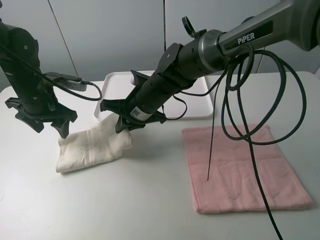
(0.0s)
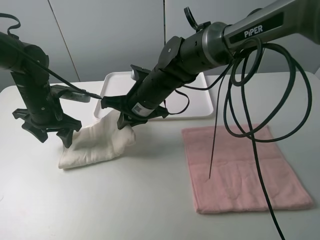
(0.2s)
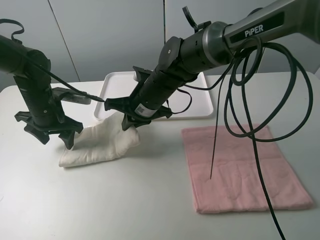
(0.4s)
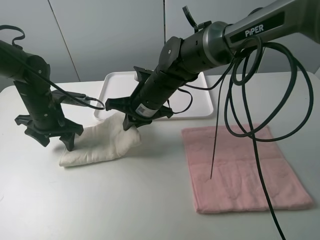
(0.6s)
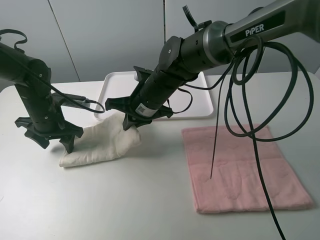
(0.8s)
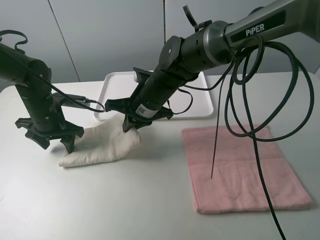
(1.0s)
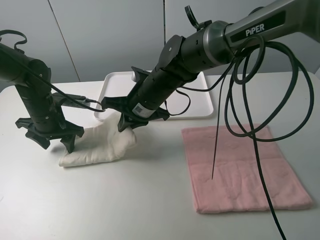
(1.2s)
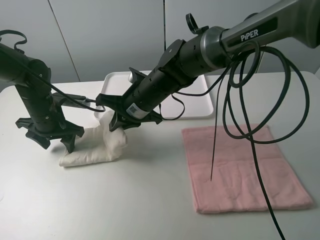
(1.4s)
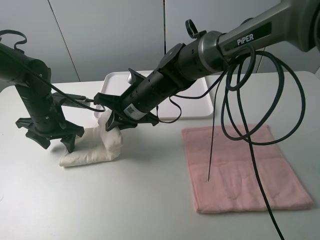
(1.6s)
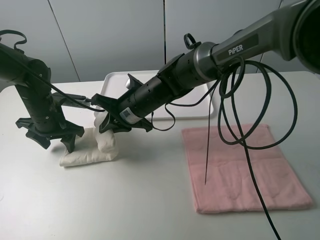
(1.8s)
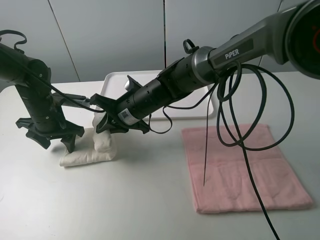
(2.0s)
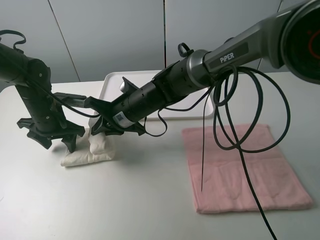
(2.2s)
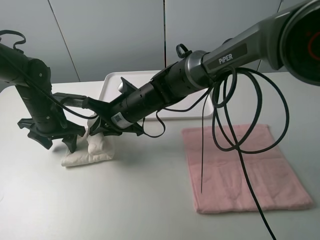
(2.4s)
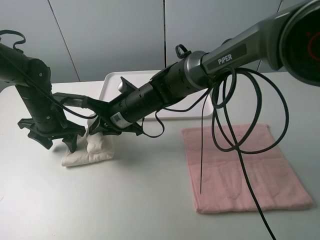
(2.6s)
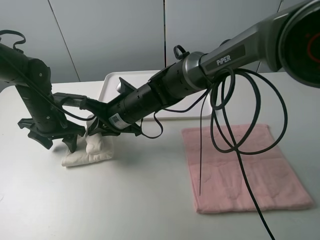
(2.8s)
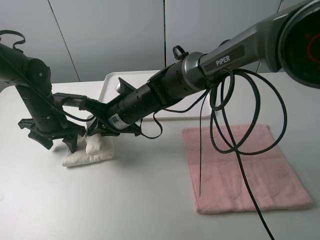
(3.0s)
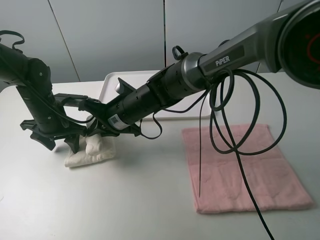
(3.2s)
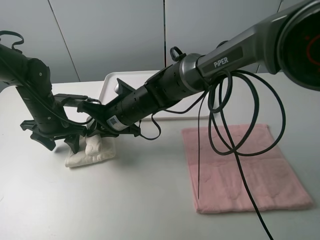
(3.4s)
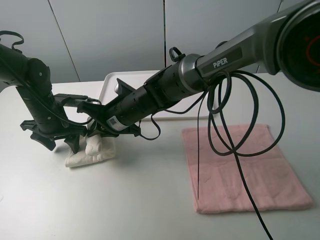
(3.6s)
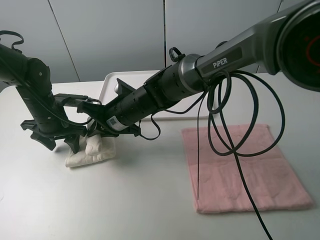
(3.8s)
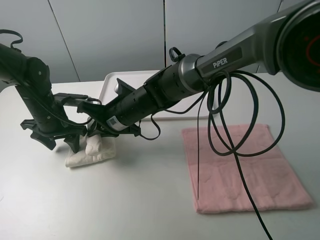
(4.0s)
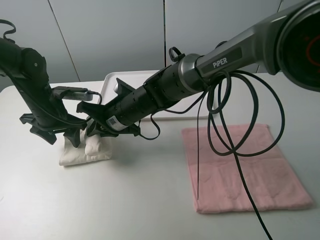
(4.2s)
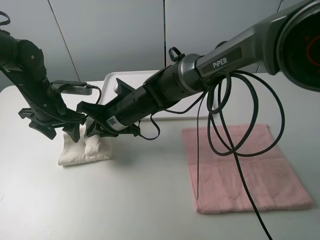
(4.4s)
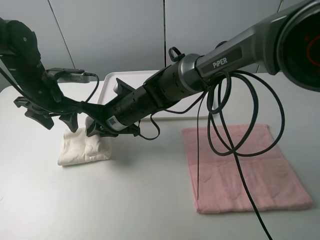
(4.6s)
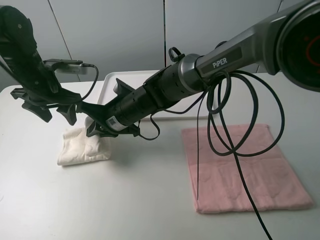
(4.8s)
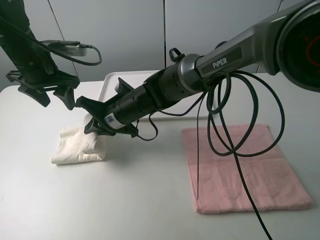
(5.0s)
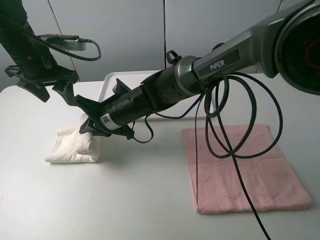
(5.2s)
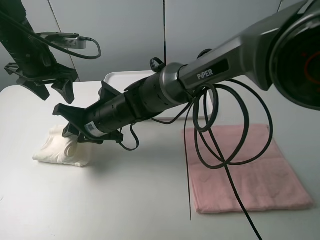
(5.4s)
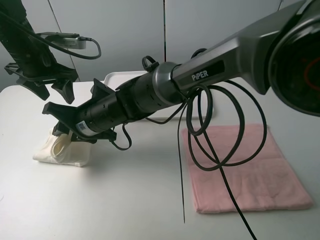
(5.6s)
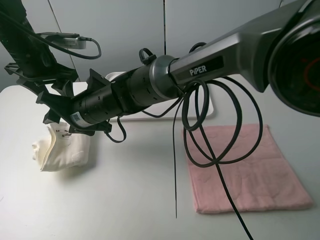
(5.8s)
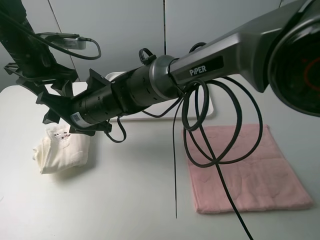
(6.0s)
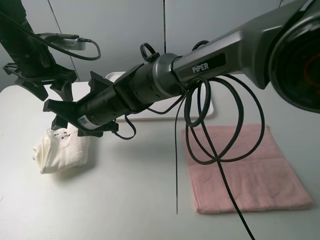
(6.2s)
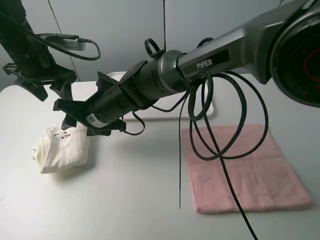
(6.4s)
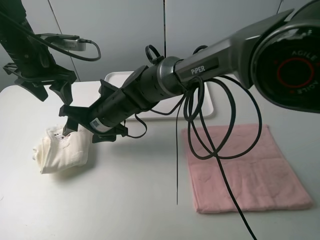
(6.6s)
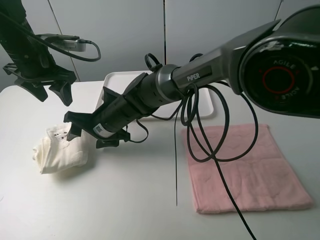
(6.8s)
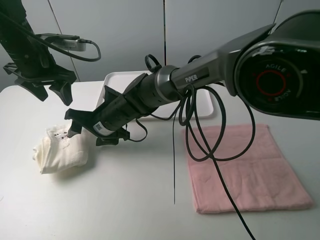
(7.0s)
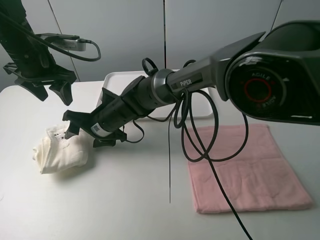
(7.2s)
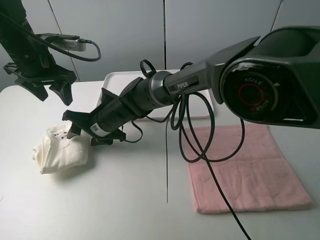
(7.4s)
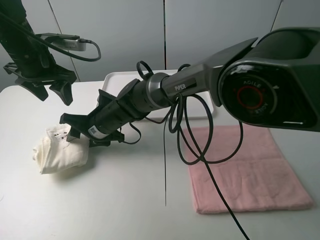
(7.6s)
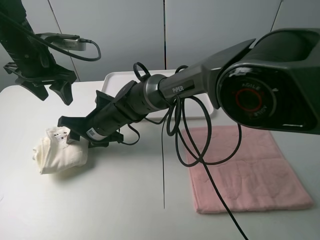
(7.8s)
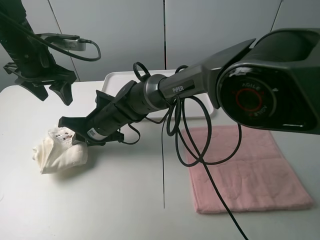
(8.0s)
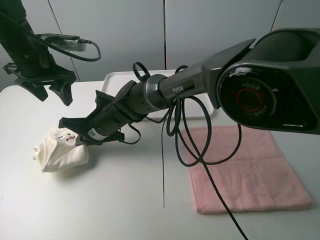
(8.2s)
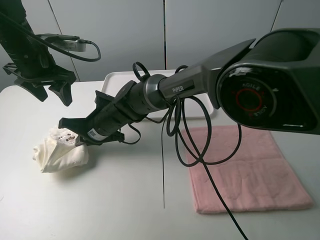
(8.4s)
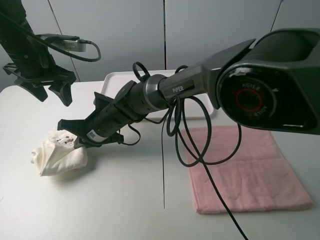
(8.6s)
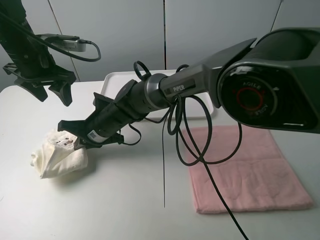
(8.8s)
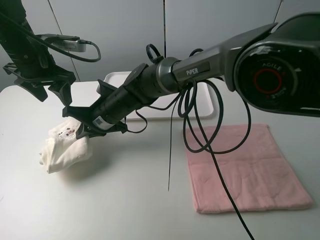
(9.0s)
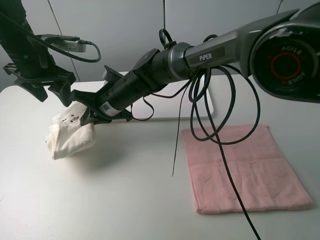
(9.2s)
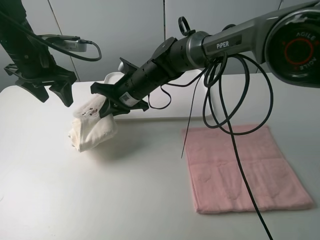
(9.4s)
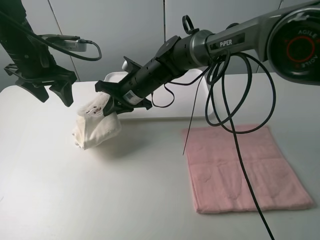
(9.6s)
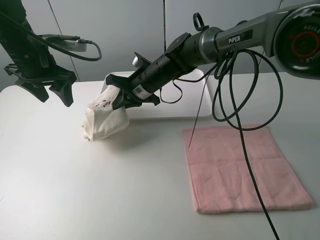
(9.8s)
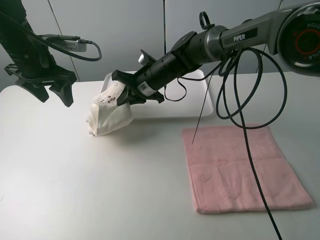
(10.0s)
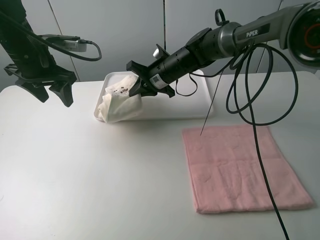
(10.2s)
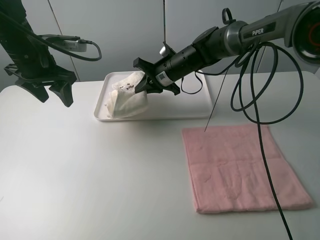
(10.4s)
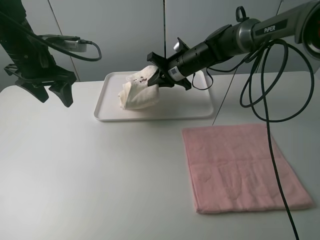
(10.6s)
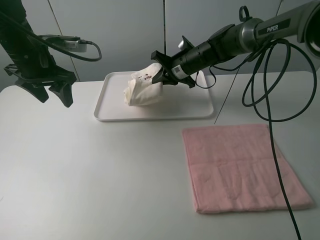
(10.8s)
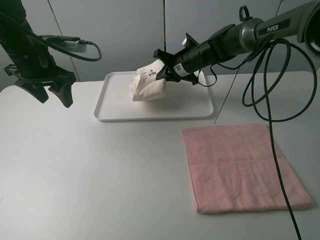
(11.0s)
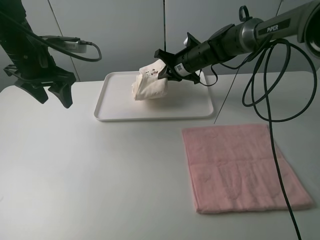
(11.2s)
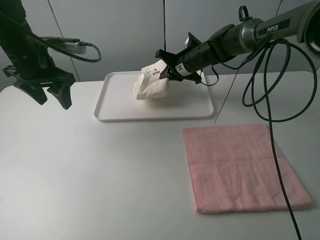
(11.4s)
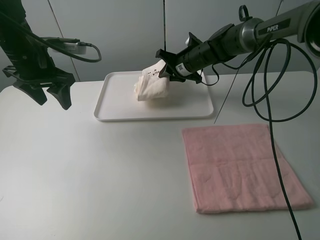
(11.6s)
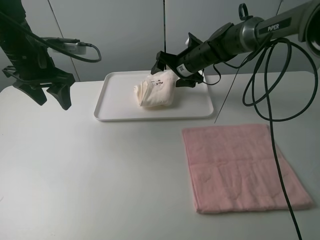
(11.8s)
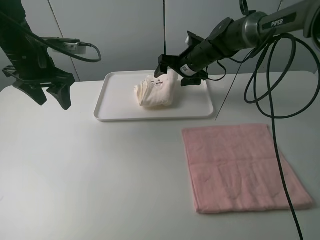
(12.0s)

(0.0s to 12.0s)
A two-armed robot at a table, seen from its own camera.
Task of the whole recording: fold one of the towels by two grippers and place it on the tray,then fold another towel by two grippers and place it on the folded towel.
Step, 0.0s - 6.0s: Fold the white towel from right to left with right gripper.
Step, 6.2s - 8.2s: Grasp the white towel with the right gripper.
Step, 8.4s - 11.8s: Move the white towel to the plate with the right gripper.
0.0s - 1.6s: The left gripper is displaced downward by roughly 5 cm.
3.0s - 4.4s: The grippers make only small movements.
4.4s - 6.0s: The left gripper travels upward by roughly 10 cm; the right gripper is displaced to the left by roughly 5 cm, and opens up.
6.0s - 7.6s: The right gripper shifts roughly 5 cm downward.
7.6s - 9.0s: The right gripper closes up.
9.0s - 10.4s: The right gripper travels to the right and forward by roughly 20 cm.
10.4s - 12.0s: The right gripper travels to the right by roughly 5 cm, and opens.

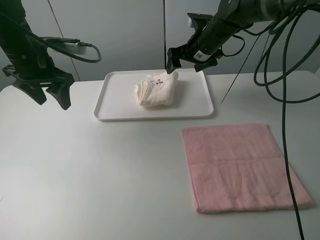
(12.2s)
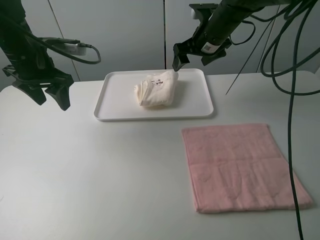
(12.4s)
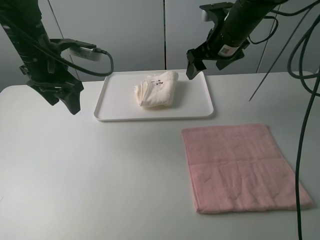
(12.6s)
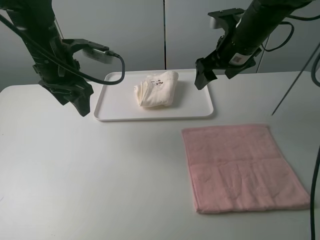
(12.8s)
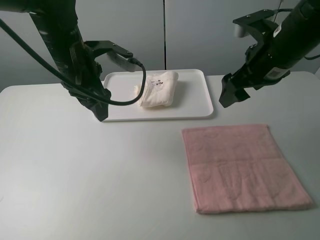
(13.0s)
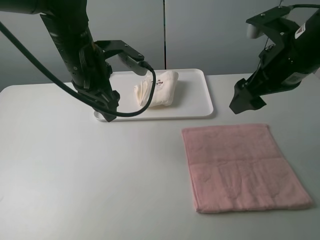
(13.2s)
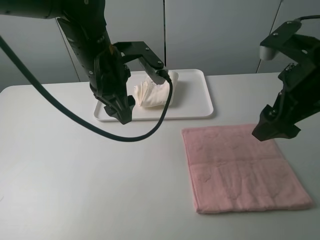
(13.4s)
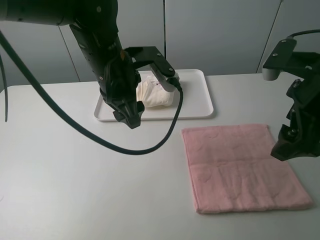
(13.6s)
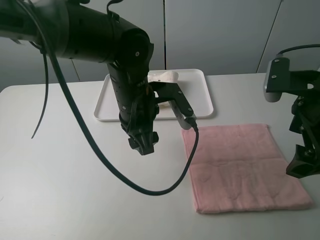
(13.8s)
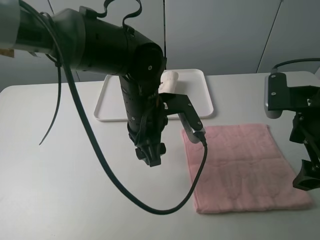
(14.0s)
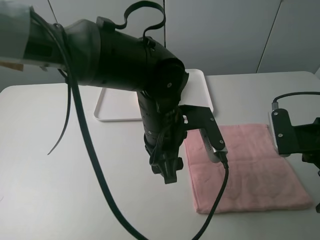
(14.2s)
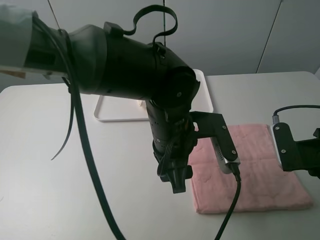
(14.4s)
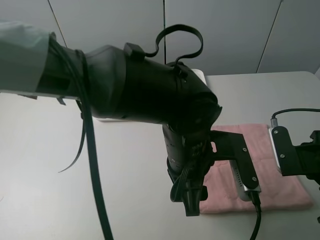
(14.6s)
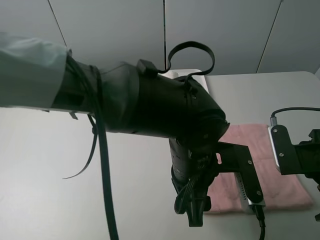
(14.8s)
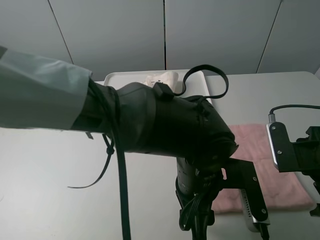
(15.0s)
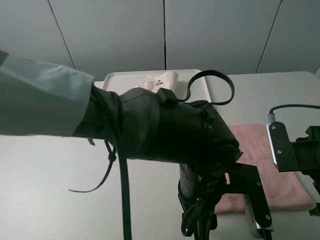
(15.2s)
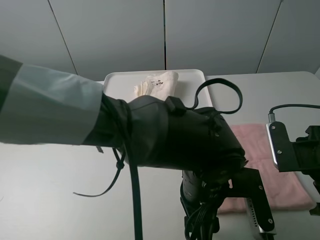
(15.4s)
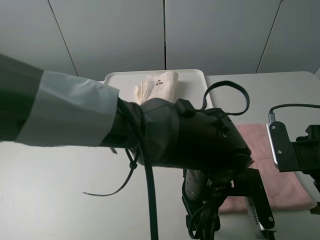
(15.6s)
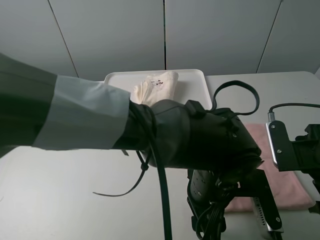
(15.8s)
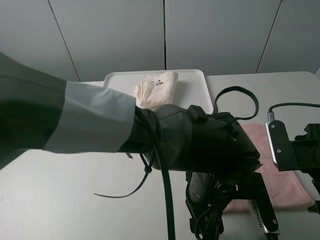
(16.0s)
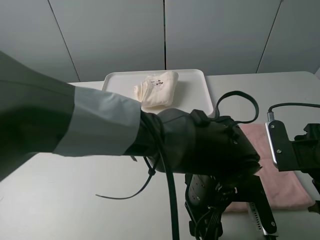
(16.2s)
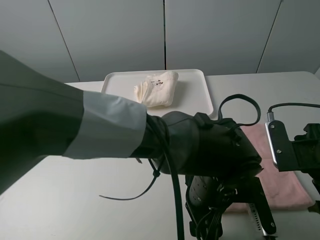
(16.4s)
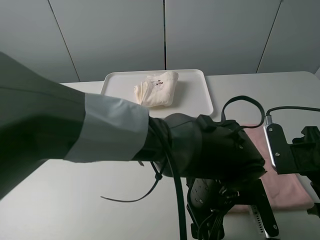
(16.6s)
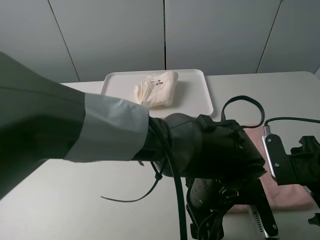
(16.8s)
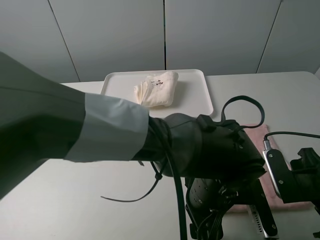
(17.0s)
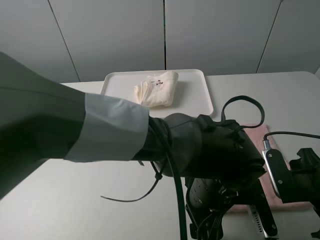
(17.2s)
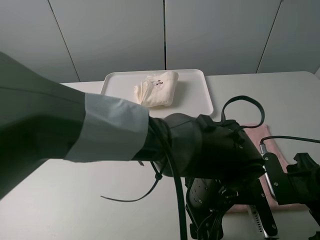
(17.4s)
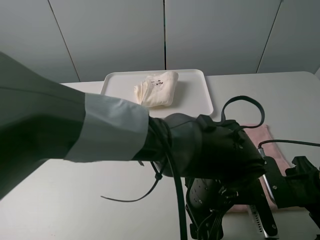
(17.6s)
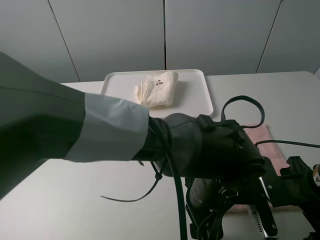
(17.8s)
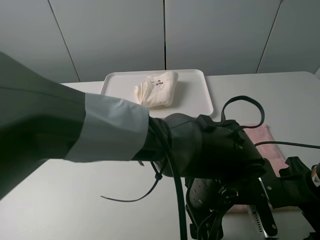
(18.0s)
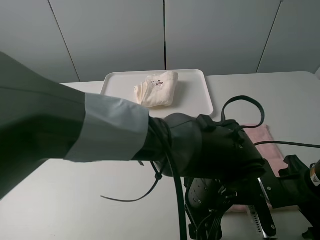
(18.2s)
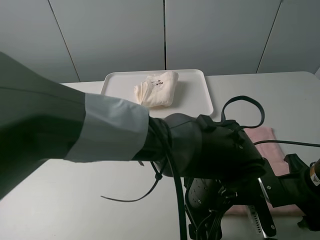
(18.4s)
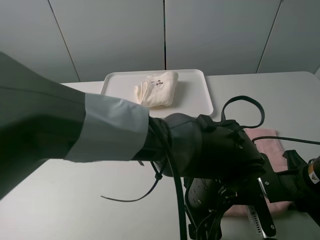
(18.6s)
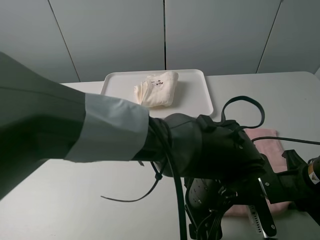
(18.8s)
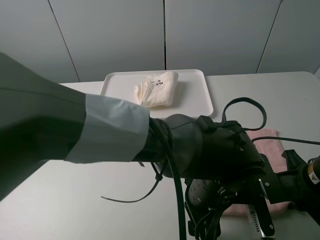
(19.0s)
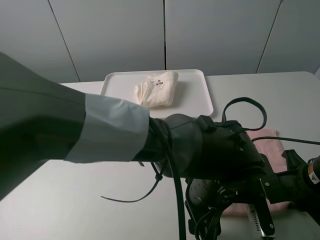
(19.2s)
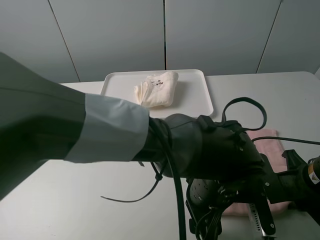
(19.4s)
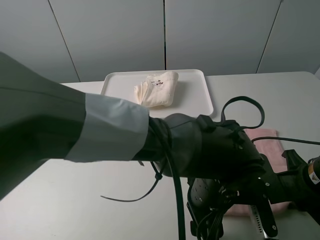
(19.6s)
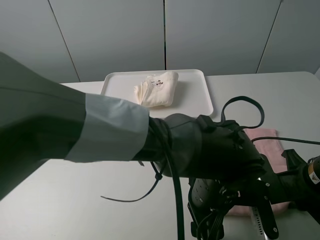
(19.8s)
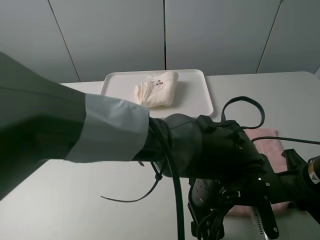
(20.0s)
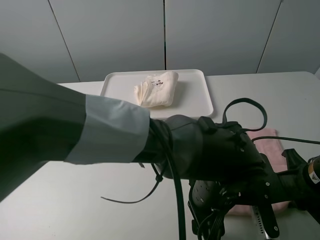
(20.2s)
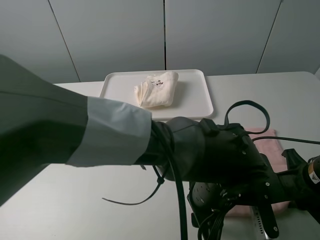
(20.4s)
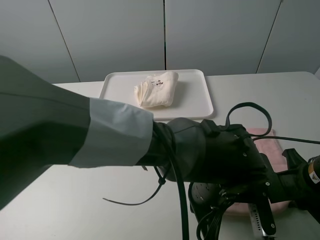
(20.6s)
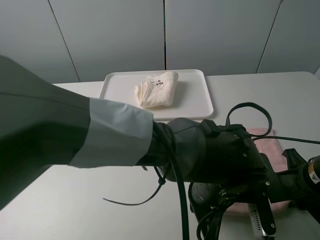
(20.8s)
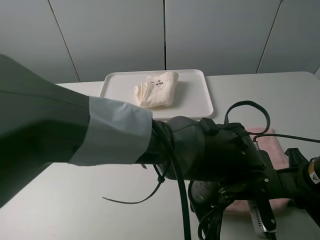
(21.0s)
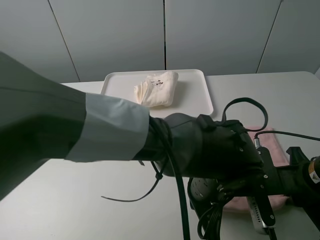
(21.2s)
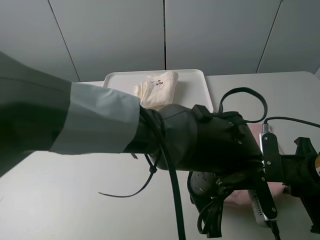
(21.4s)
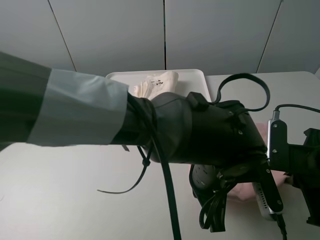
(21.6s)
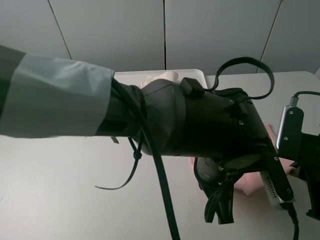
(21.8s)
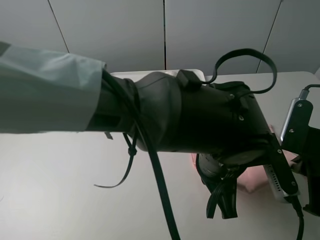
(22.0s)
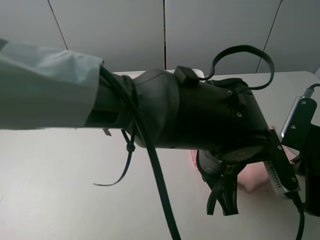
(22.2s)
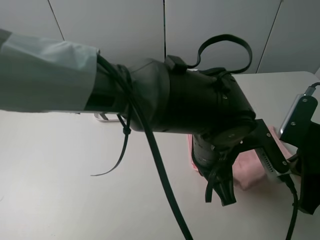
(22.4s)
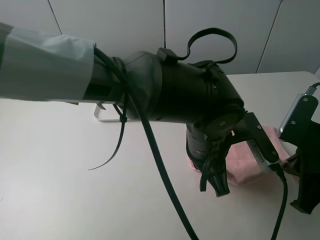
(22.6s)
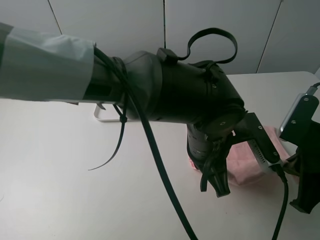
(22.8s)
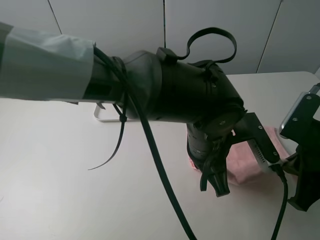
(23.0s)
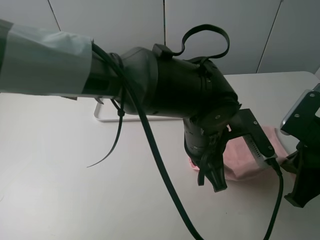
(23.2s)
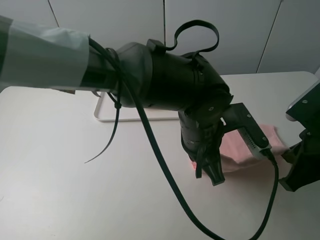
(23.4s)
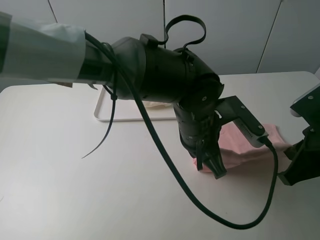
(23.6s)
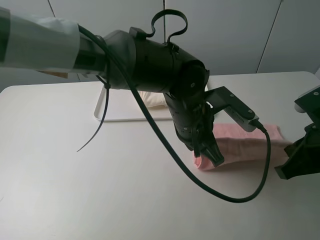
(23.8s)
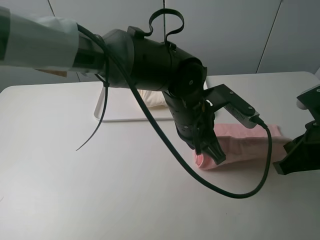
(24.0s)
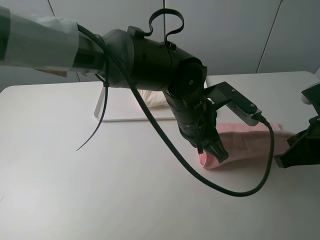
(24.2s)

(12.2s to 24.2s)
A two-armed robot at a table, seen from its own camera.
Task of the whole recording: fold one of the towels by two grippers and place it on the tray,then fold another towel by two grippers and place it on the folded towel.
Step, 12.2s - 20.6s: Grasp the pink towel with the left gripper.
12.2s - 13.8s: The left gripper goes approximately 20 cm to the right, while the right gripper heads backward and to the right, covering approximately 30 cm.
13.8s - 15.2s: The right gripper is displaced downward by roughly 10 cm. Meanwhile the left gripper travels backward, to the right and downward by about 15 cm.
16.6s - 18.2s: The right gripper is displaced downward by approximately 5 cm.
18.2s - 19.8s: The right gripper closes up.
19.8s - 21.2s: The left gripper closes up.
21.2s - 22.6s: The two grippers go some 5 cm upward.
22.6s - 24.2s: The left gripper heads forward, covering about 5 cm.
